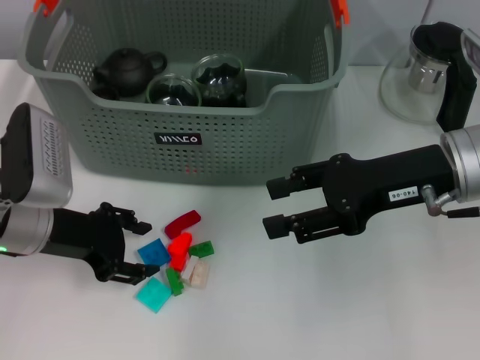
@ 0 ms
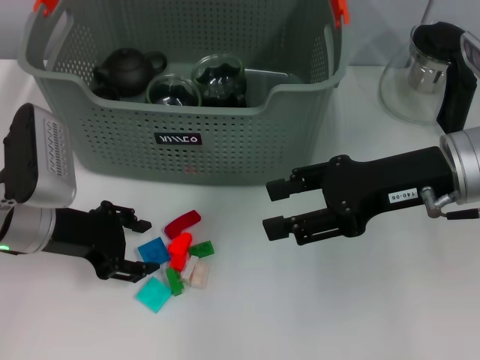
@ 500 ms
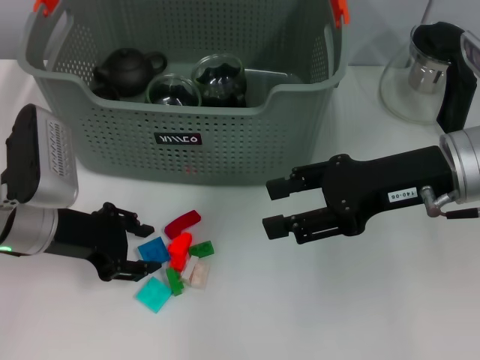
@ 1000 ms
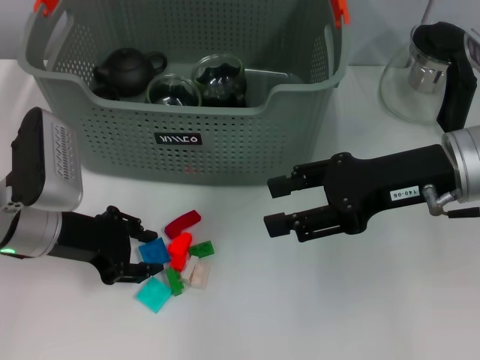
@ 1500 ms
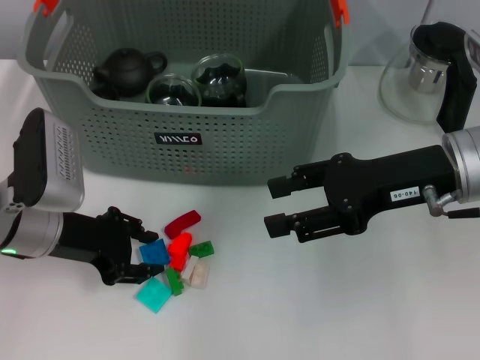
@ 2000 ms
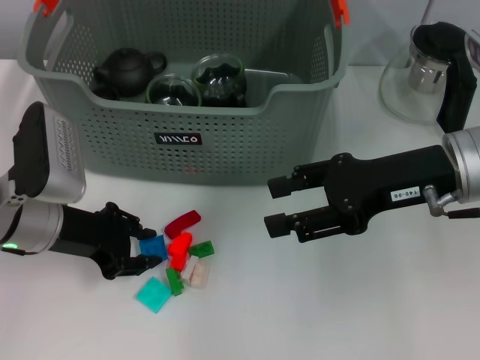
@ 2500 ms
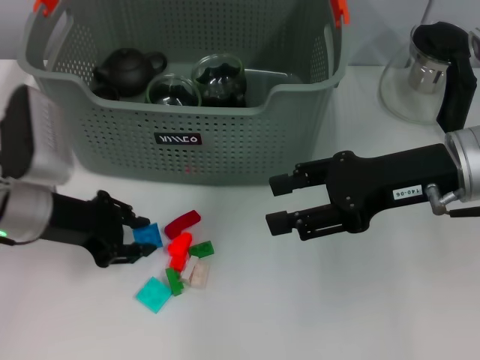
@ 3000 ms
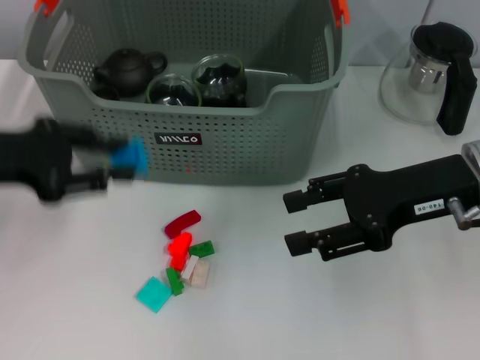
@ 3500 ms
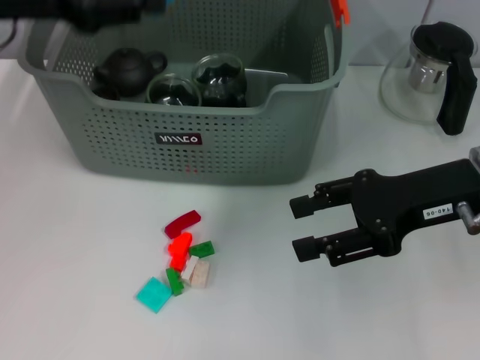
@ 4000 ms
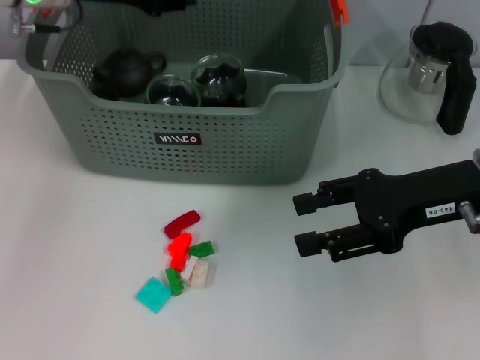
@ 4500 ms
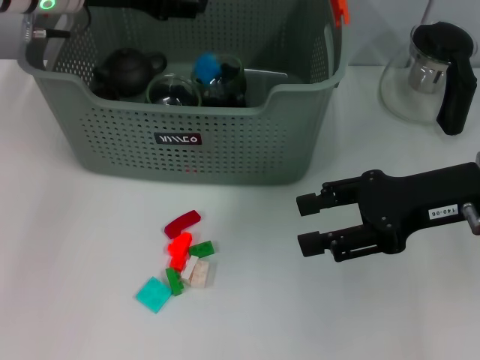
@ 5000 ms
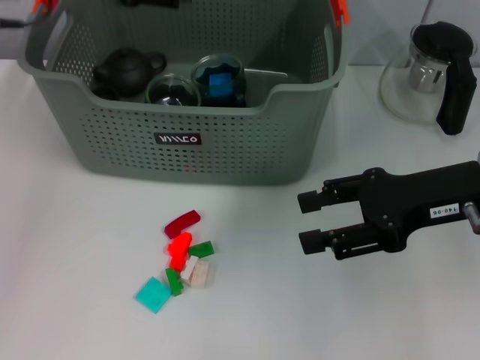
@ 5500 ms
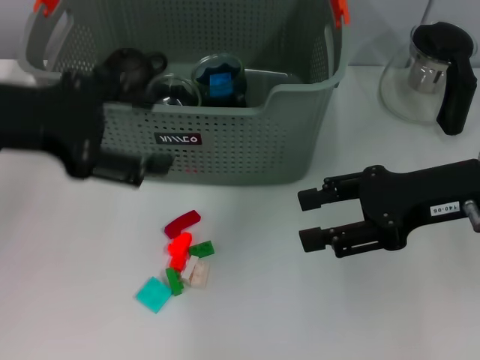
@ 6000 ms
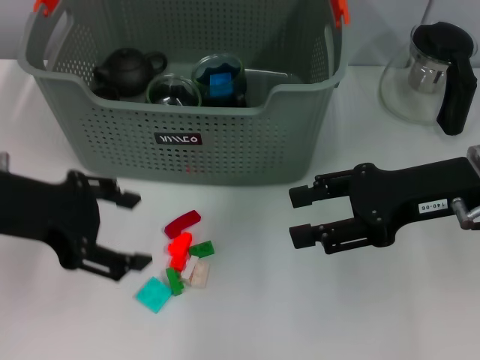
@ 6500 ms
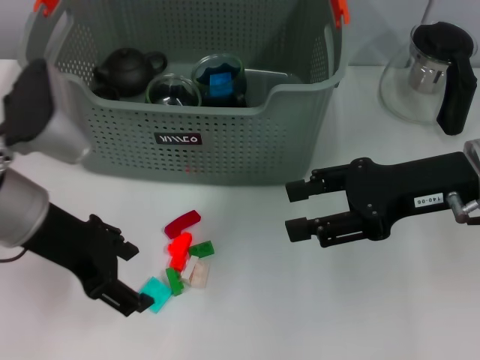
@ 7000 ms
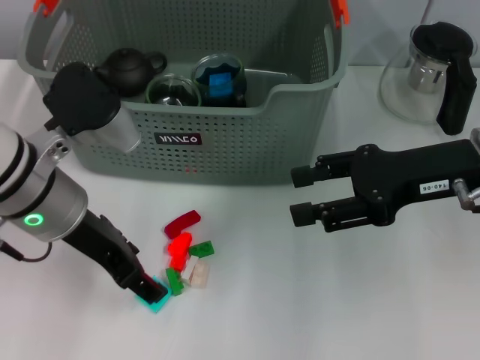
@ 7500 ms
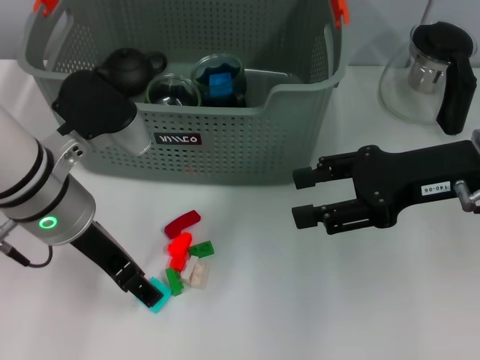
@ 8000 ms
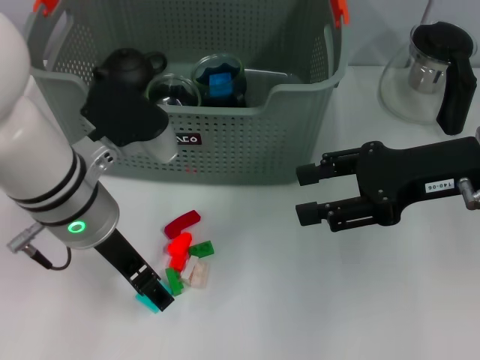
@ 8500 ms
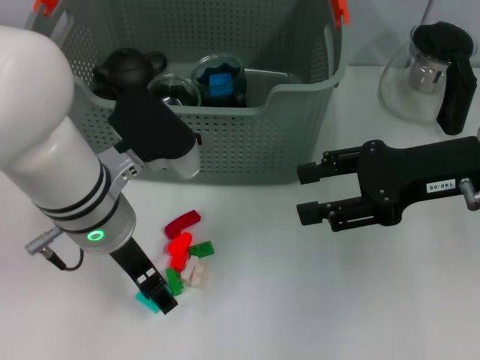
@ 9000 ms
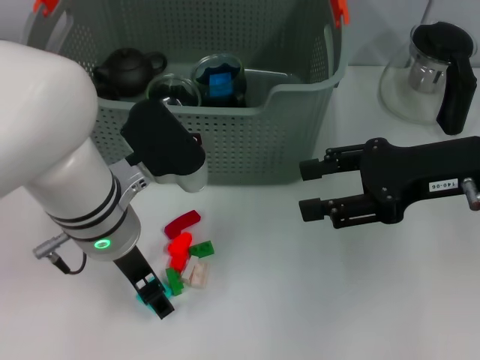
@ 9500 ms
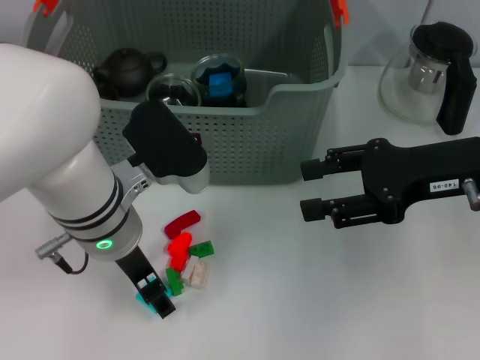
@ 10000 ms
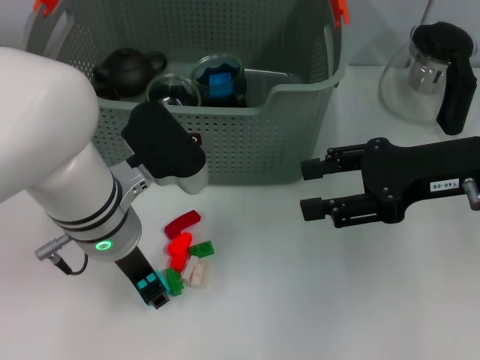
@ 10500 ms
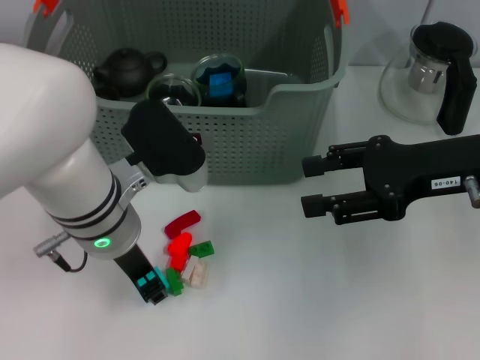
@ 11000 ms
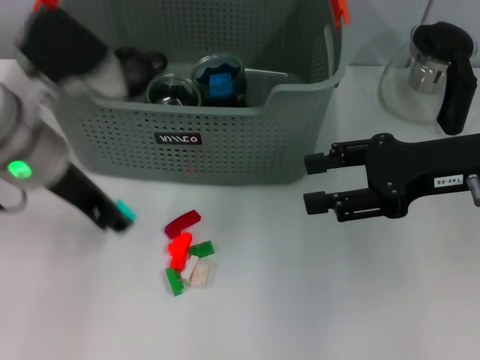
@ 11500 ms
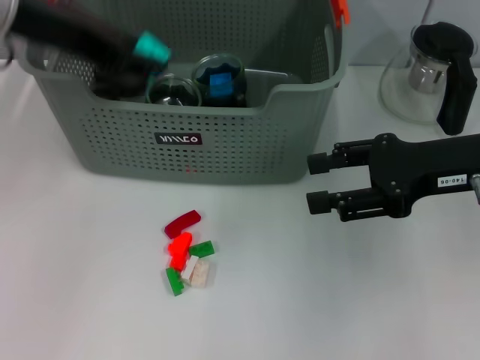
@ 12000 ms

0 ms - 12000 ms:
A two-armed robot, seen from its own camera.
Task of the whole recording: pick up the teacup on the table and place it into the storage bin, pick up the block on the table and place it into the storage bin.
Step, 0 ms - 2500 ms: Grasp the dark blue block with left gripper.
Step, 3000 ms - 5000 ms: Place the dark blue block in the storage box with left gripper.
Step, 5500 ms - 10500 ms: Grasp the light blue block with left gripper.
0 ms - 2000 ms: Neither gripper changes place.
2000 ms - 4000 ms: The left gripper travels upward by about 20 cm.
4000 ms - 6000 ms: The left gripper shifts roughly 10 cm backward, and opens its fingers.
6000 ms - 8000 ms: The left gripper is displaced to the right and downward by approximately 10 cm.
8000 ms - 10000 ms: The left gripper ends up roughly 5 cm from where it was.
10000 ms - 12000 ms: The left gripper shifts roughly 20 cm upward, and closes its fingers.

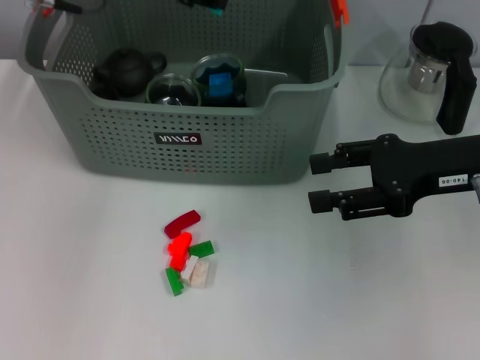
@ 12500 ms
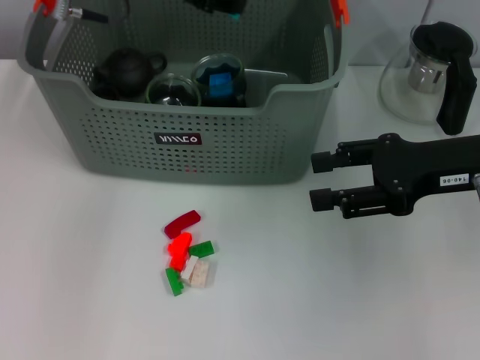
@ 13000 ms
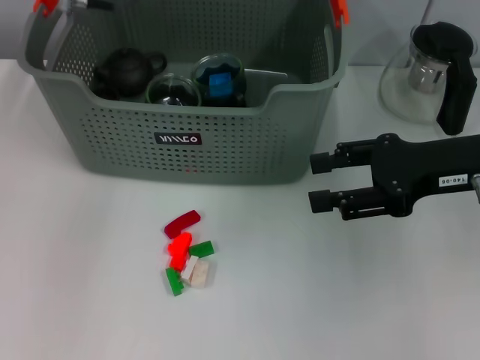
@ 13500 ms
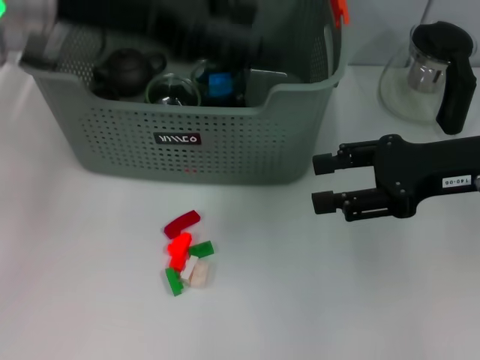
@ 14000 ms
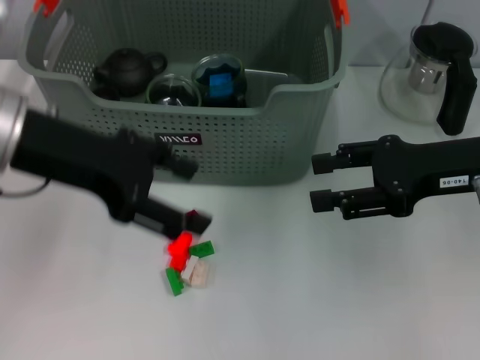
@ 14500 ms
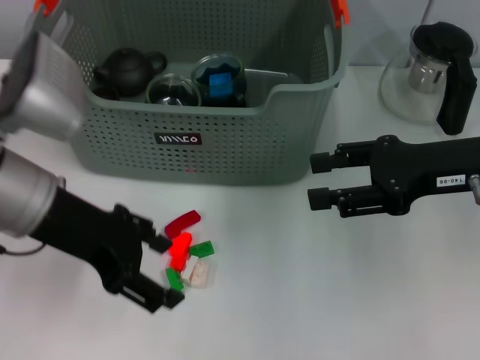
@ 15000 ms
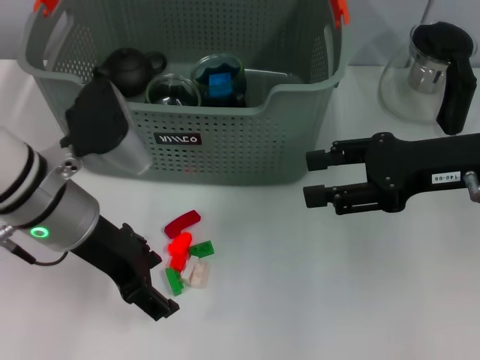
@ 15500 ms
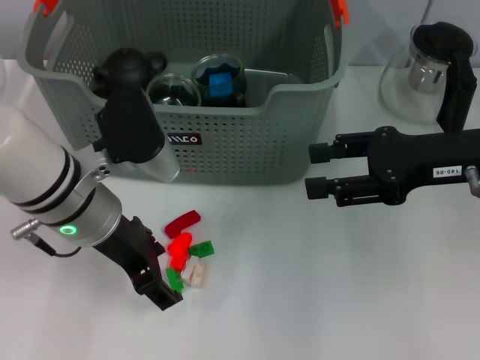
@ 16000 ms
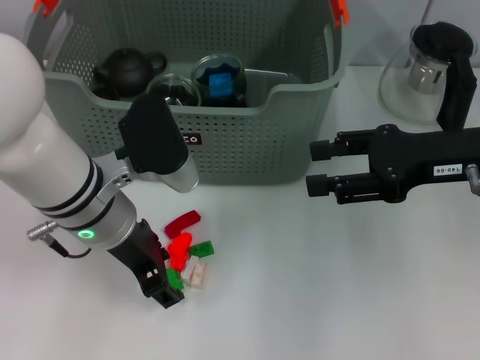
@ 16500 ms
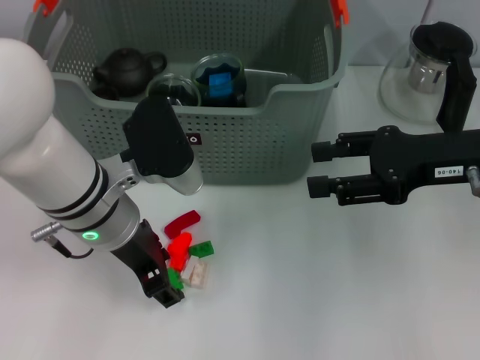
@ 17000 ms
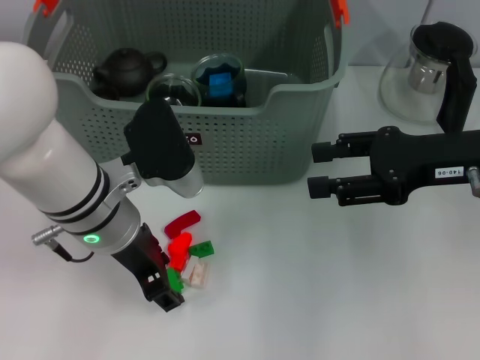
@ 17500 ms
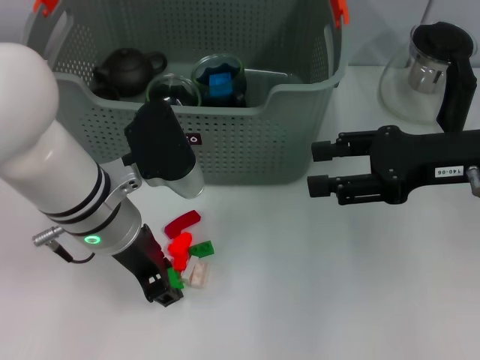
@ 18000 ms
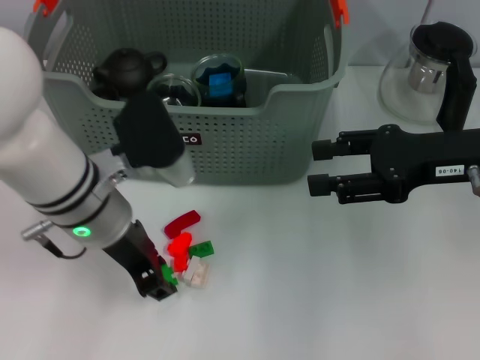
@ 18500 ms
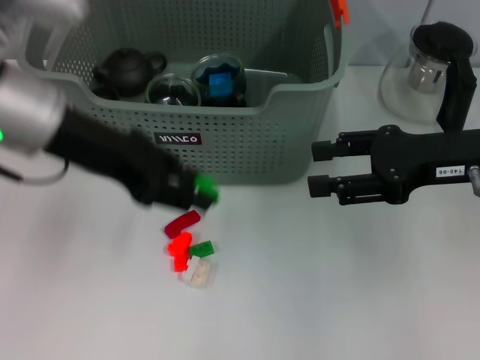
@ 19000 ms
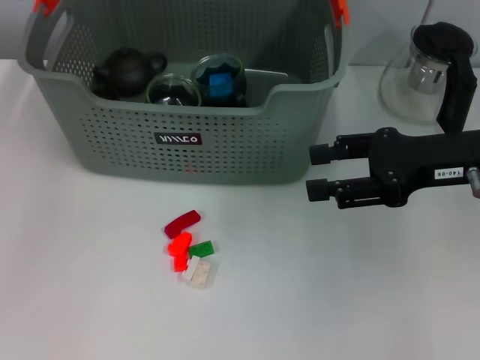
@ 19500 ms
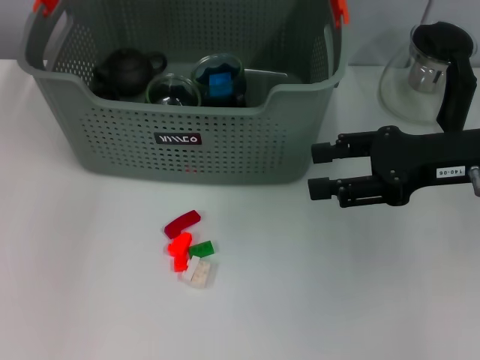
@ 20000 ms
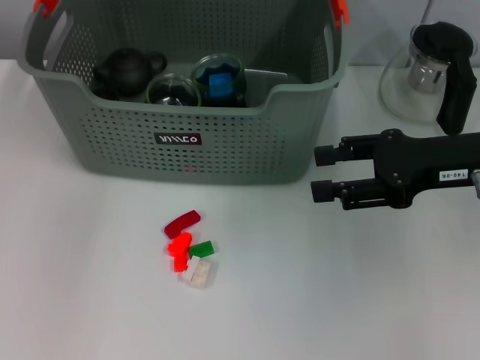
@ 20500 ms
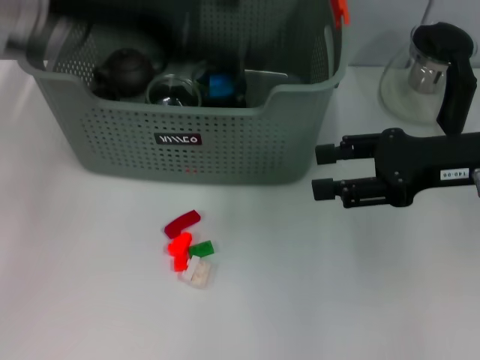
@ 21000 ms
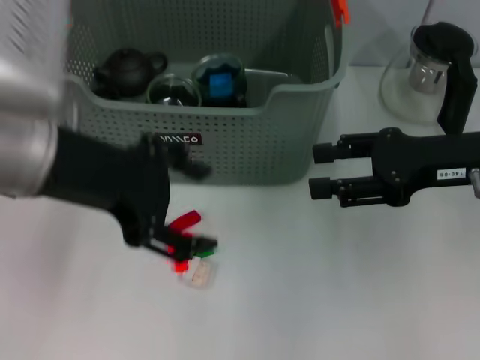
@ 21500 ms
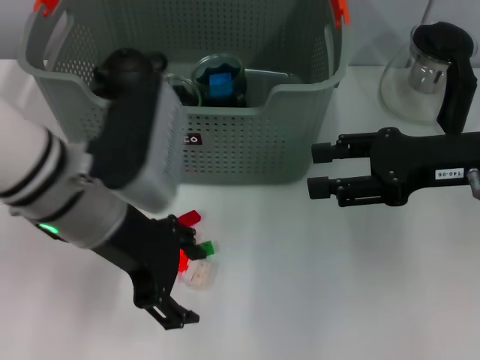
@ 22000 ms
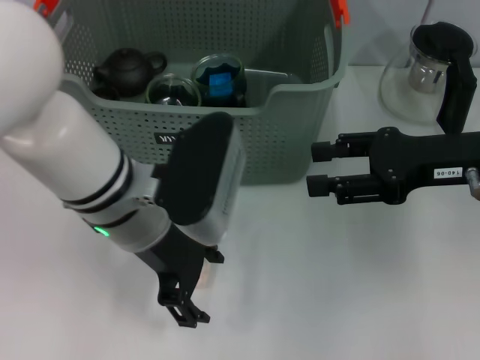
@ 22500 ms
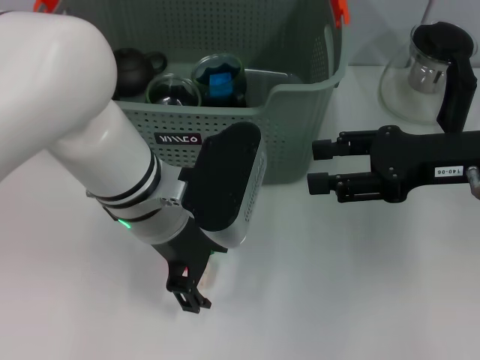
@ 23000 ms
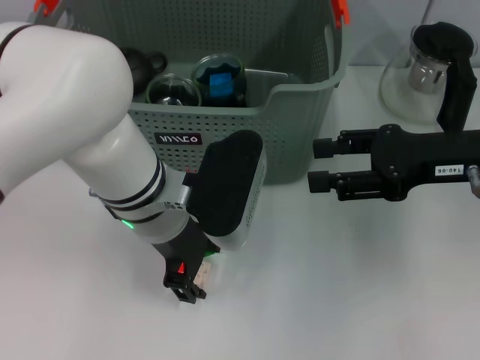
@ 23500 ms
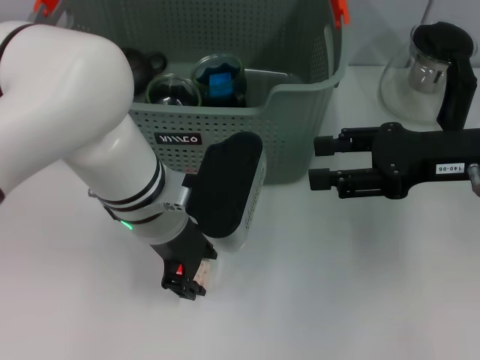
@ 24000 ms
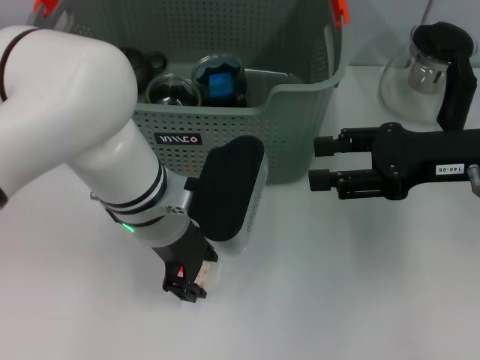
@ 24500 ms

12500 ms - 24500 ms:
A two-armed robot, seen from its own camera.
Task of the whole recording: pick up the teacup on the table and place it into the storage bin, pick up the block on the table and place it into the storage bin.
Step, 14000 ms - 18000 ms: Grasp the green block with left gripper.
Step, 18500 ms - 20000 ms: Place the green block in the storage box with left gripper.
12500 ms - 14500 ms: The left gripper travels backward and downward by some 15 cm, and opens.
14500 ms - 16500 ms: The left gripper heads downward and to the right, covering about 15 cm.
16500 ms - 18500 ms: The left gripper closes its fingers.
18500 ms - 20500 ms: The left gripper travels upward and forward by about 20 cm.
20500 ms - 22500 ms: The left gripper travels backward and downward by roughly 20 cm.
22500 ms - 24500 ms: The left gripper closes its fingers.

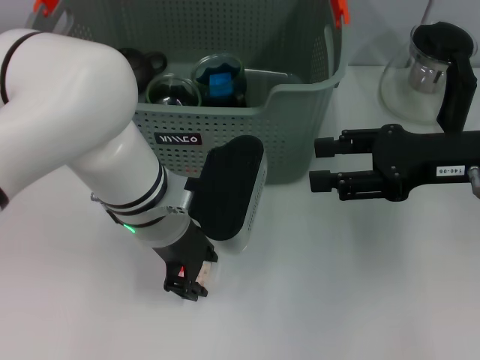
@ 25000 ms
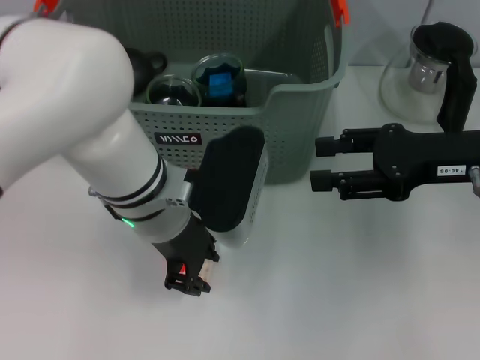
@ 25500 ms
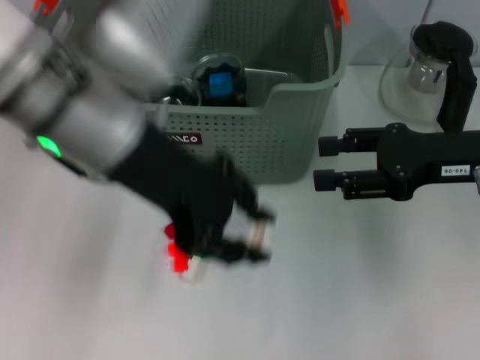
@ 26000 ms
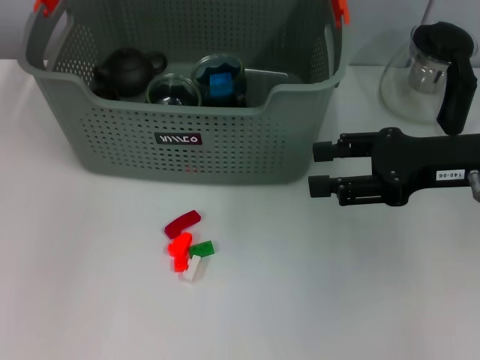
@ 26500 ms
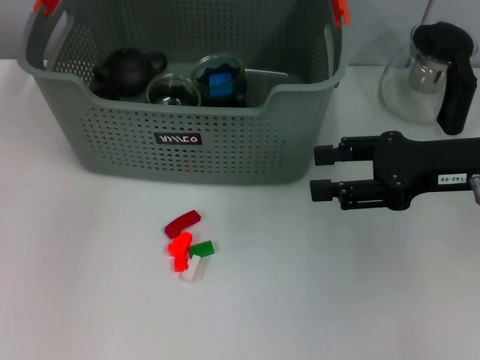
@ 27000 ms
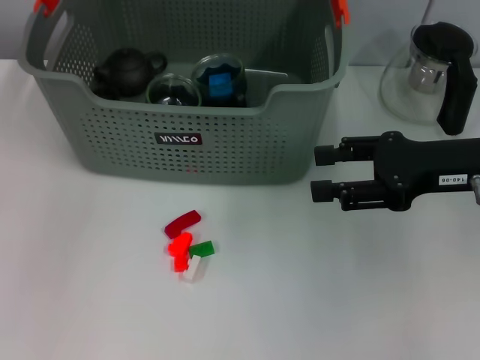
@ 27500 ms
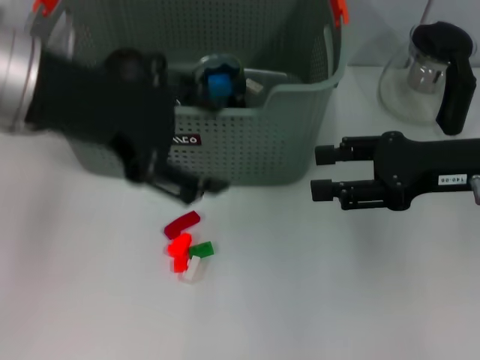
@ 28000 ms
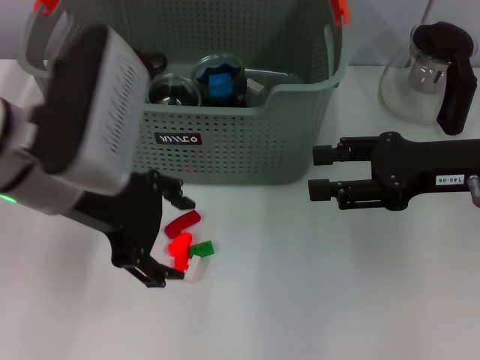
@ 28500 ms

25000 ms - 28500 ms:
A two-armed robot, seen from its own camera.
Task of the whole recording: pick up the teacup on the table and place it into the storage bin, pick up the block on the table and place it into the storage bin.
Step, 25500 ms - 27500 ms: Place the white block in the storage box with left gripper.
25000 ms - 27000 ms: The left gripper goes approximately 20 cm upward, forward and to the left.
27000 ms - 28500 ms: The left gripper travels backward and downward by some 15 cm, and opens its fingers.
